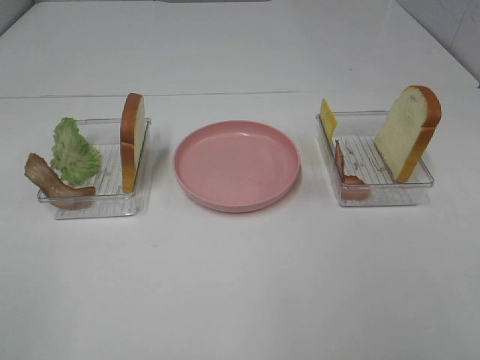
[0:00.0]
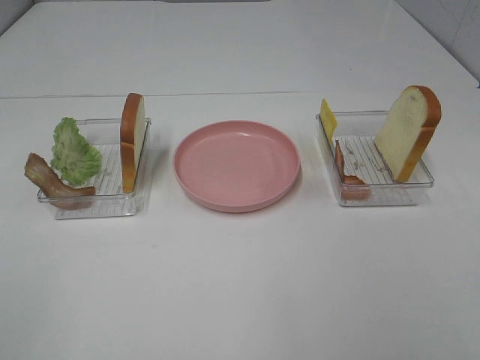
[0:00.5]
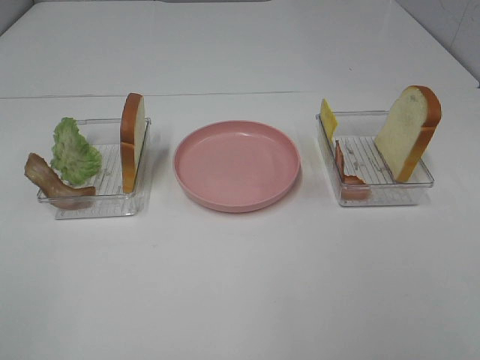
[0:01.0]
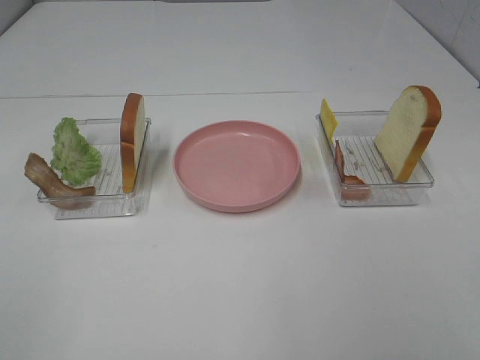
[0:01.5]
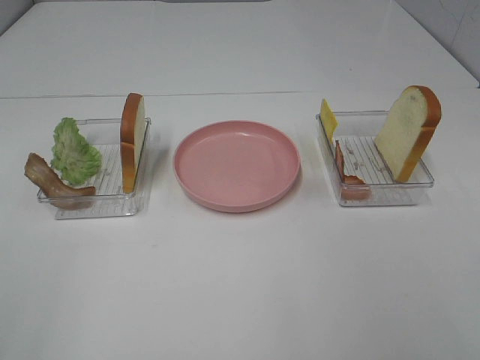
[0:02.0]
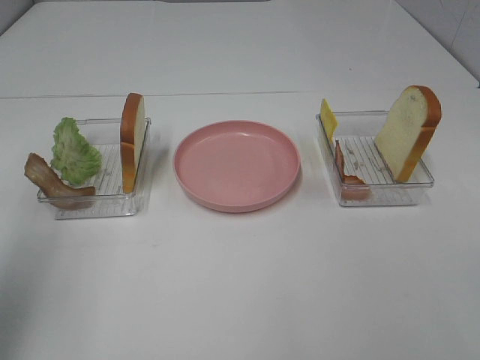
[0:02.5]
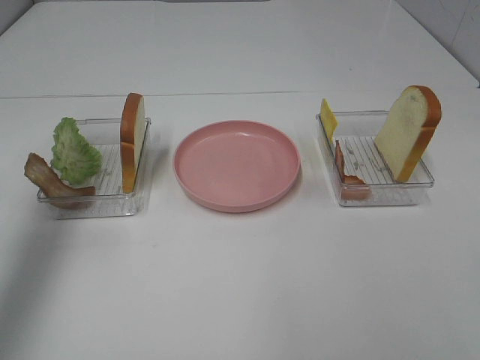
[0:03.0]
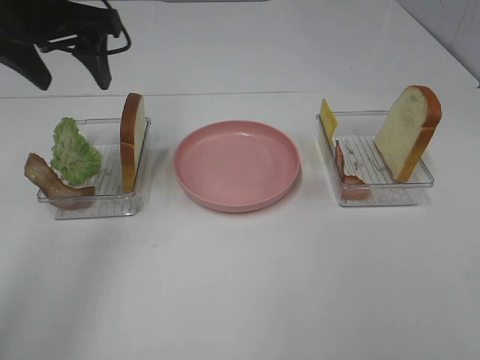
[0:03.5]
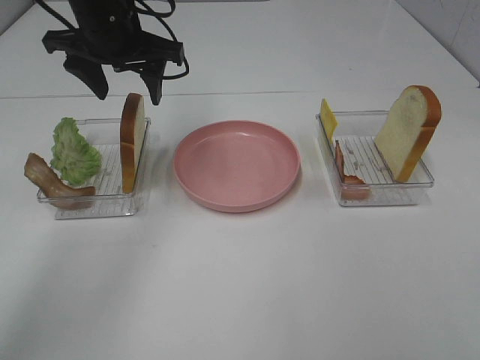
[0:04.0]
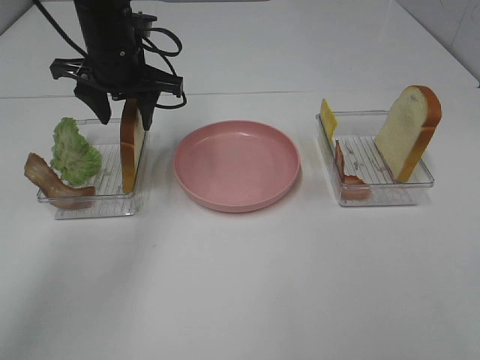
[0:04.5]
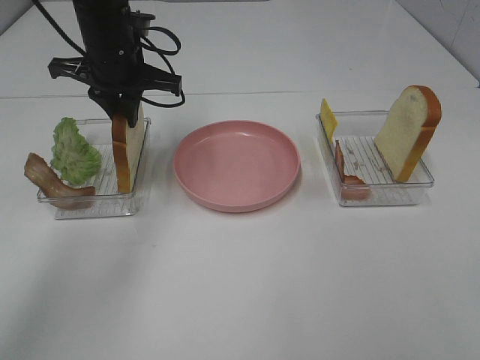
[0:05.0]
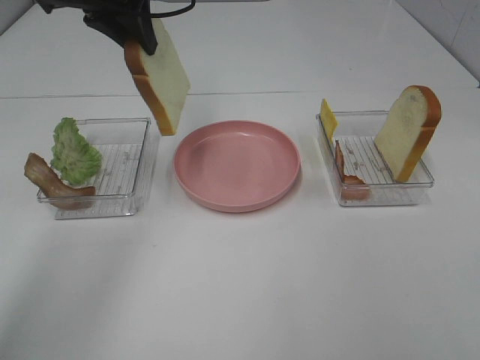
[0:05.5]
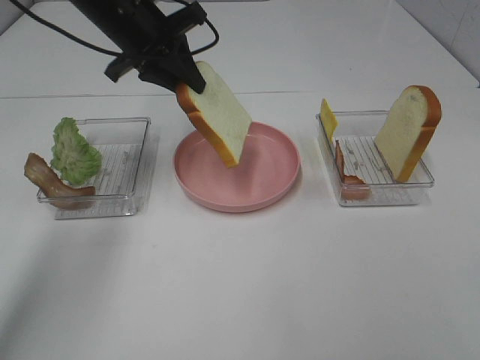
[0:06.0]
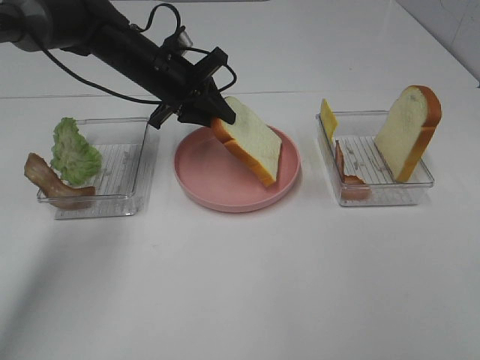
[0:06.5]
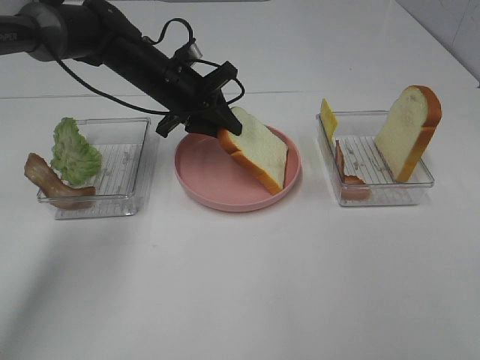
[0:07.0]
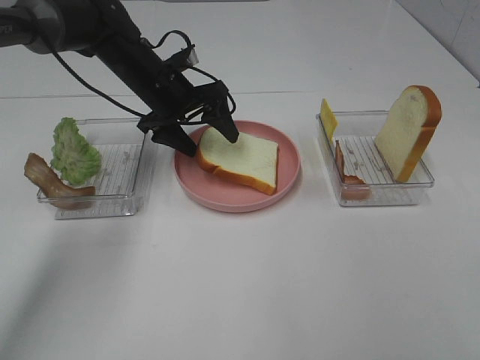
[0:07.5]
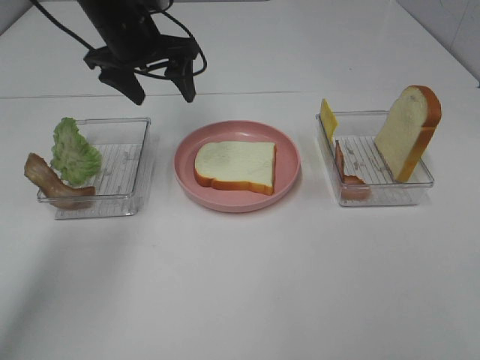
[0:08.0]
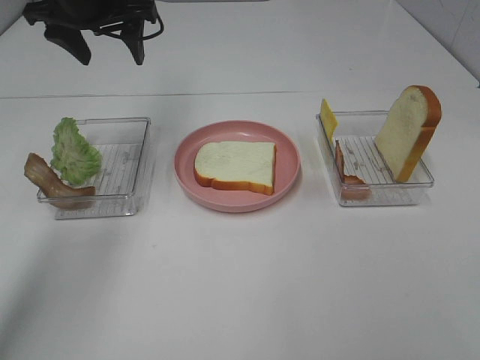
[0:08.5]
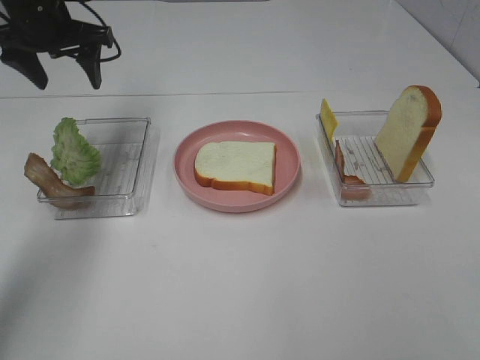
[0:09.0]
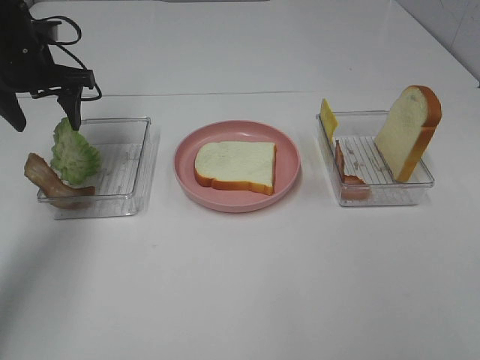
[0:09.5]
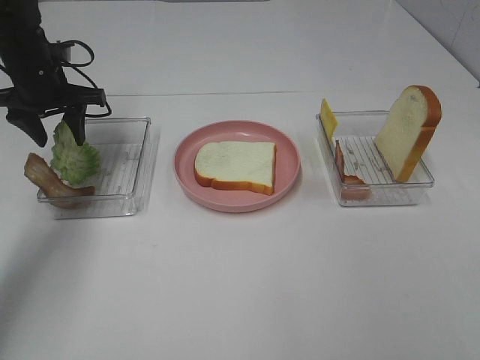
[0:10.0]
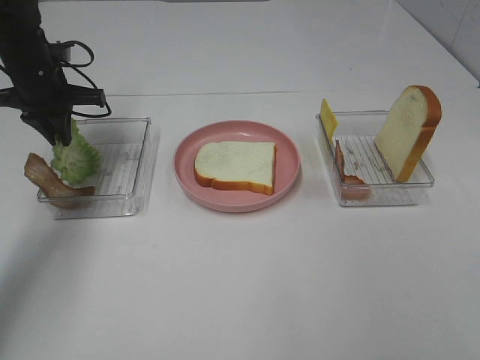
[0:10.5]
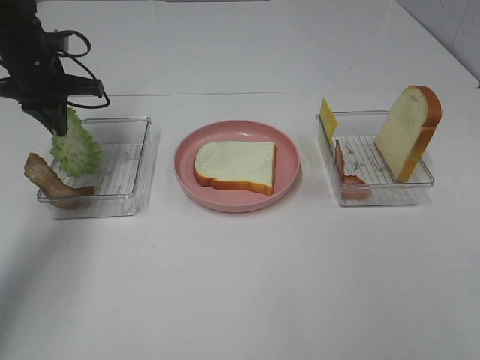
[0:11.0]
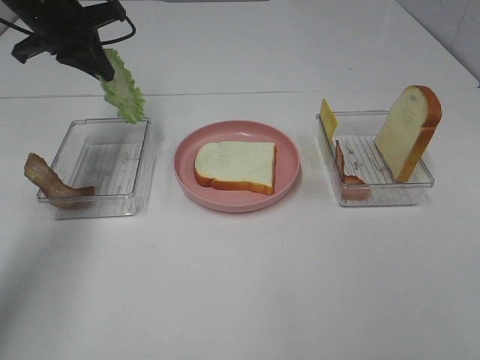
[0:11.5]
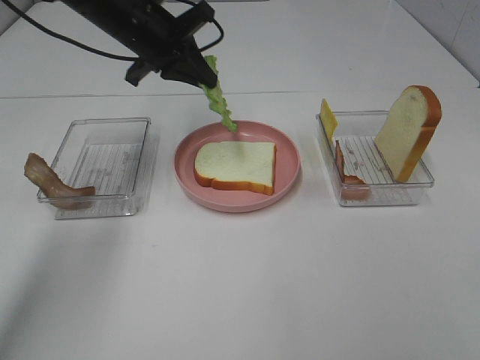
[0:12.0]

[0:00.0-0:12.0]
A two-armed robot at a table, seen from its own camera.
Task of the whole recording: Make sandwiches.
Step, 0:00.0 to 0:04.5: Left hand:grab the bread slice.
Step, 0:05.0 to 0:07.5: Left hand:place the bread slice on the plate.
Step, 0:08.0 to 0:10.5: Left hand:grab the lettuce slice.
0:02.0 to 0:04.0: The left gripper moves forward, some 40 cm.
0:04.0 to 0:06.0: The left gripper moves up and down over about 10 cm, changing direction 2 times, and closes up.
0:06.0 to 0:08.0: The left gripper travels downward and back again, about 10 cm each way, and opens.
0:08.0 to 0:10.0: The left gripper travels to the left and downward by roughly 15 cm.
0:10.0 to 0:12.0: The left gripper is displaced to the right by roughly 15 cm, and closes.

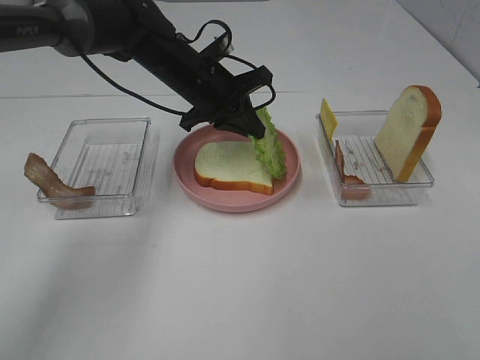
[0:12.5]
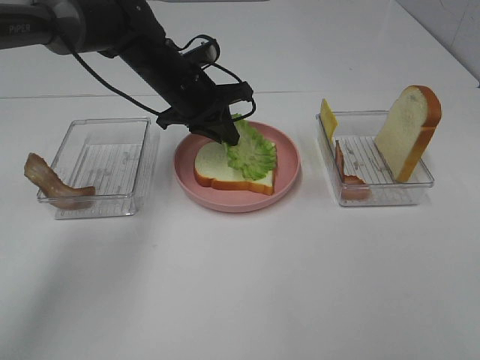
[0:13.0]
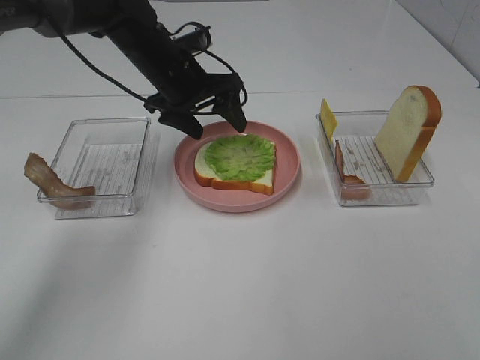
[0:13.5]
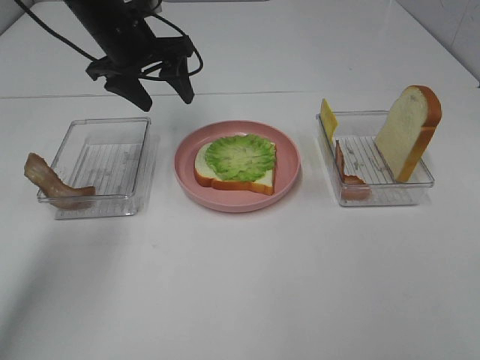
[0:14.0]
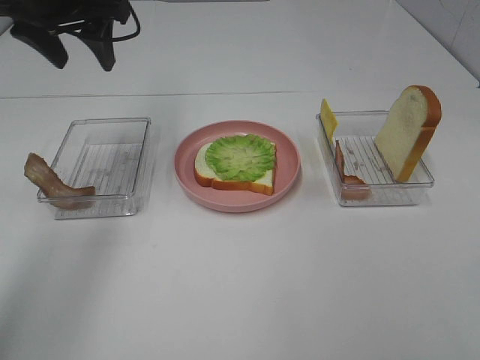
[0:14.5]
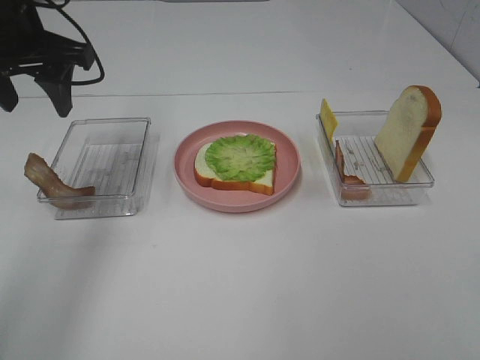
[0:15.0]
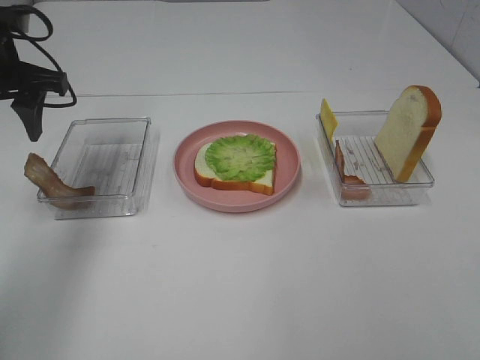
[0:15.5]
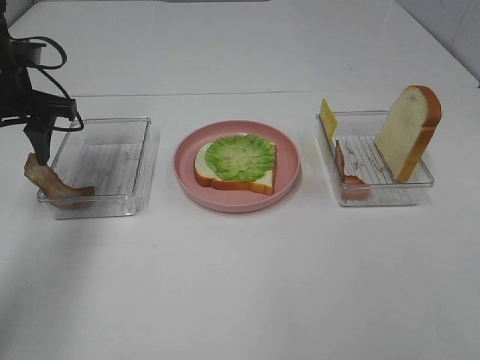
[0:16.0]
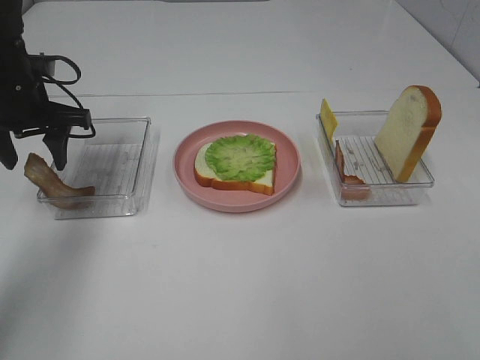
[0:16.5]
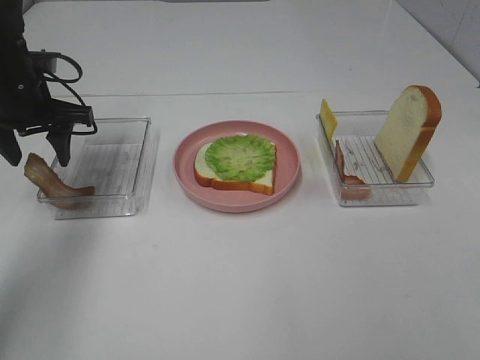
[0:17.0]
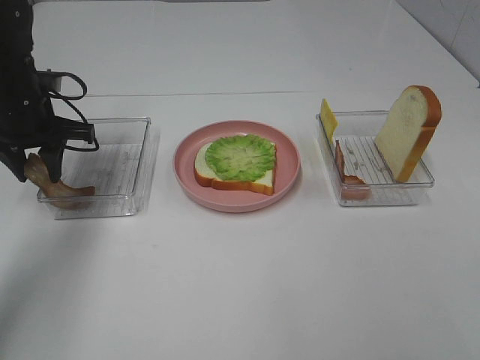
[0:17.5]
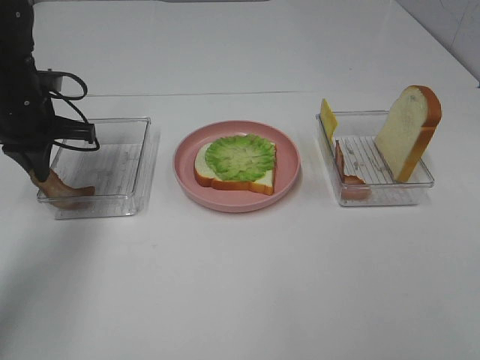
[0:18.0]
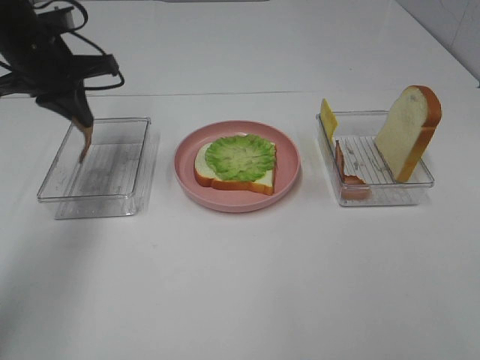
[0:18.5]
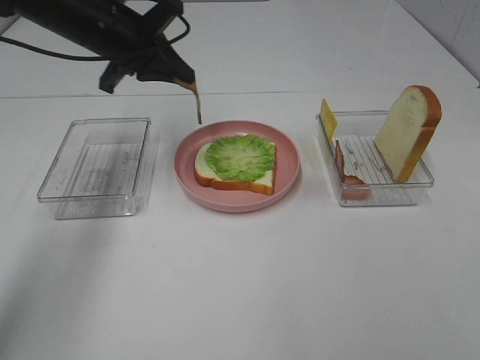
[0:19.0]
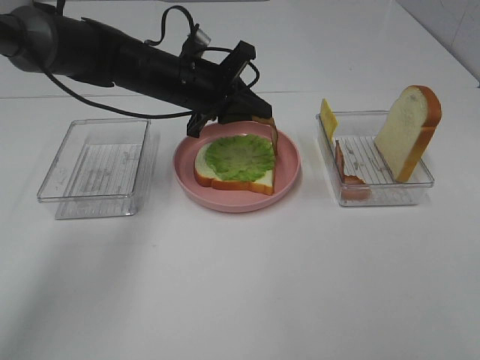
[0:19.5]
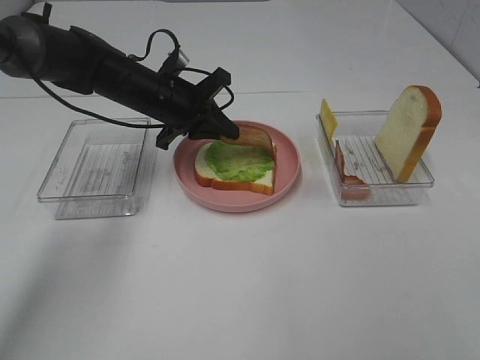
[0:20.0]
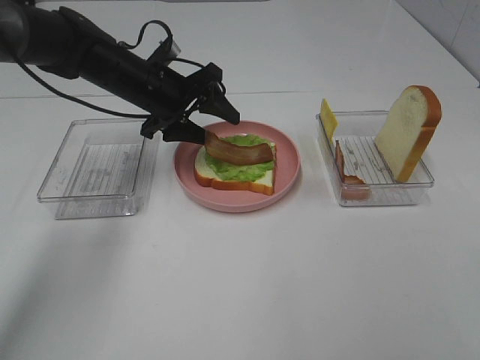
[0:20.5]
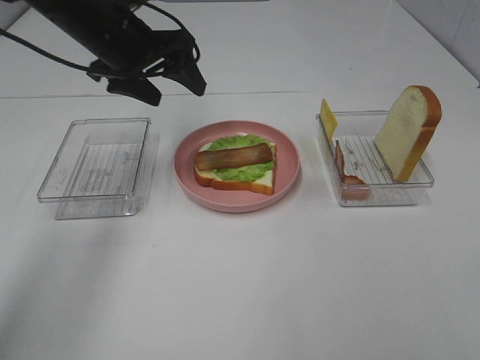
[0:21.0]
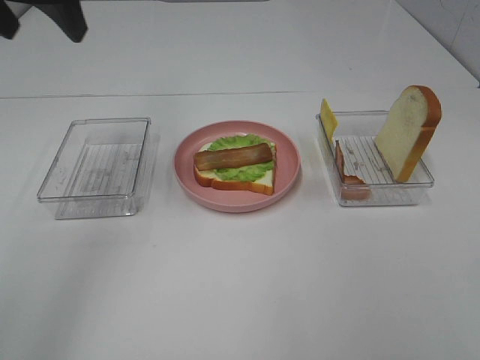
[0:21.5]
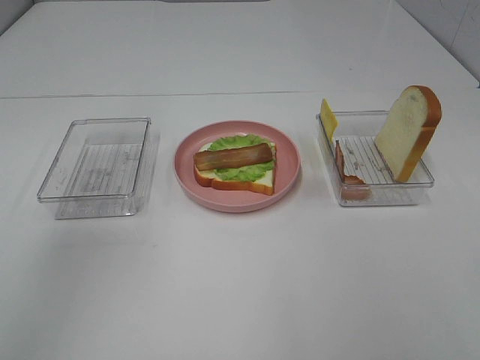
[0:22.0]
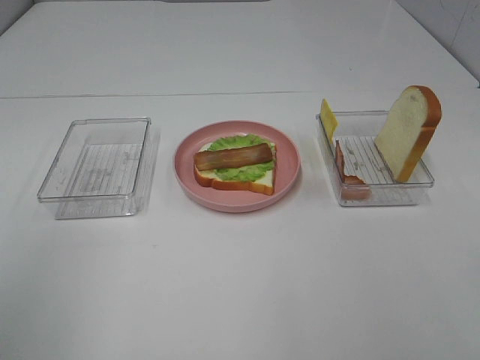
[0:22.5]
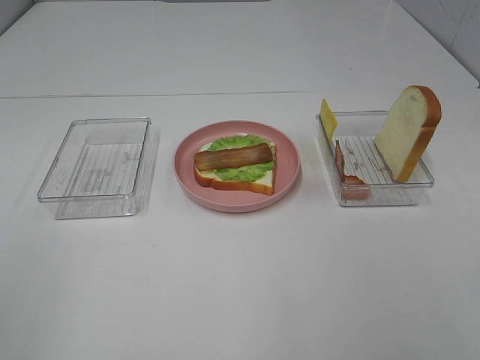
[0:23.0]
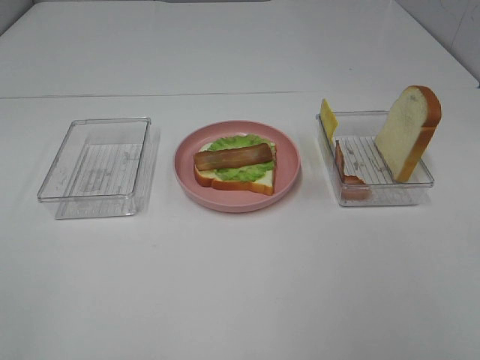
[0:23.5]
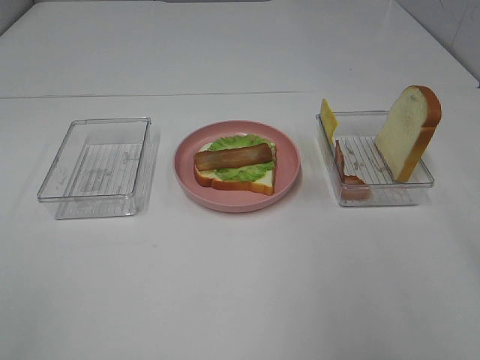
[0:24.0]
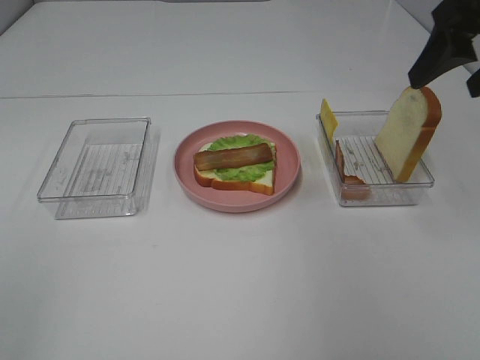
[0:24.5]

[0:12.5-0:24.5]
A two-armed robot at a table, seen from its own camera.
Task of the whole recording: Make sandwiches.
Step, 0:14.0 to 0:18.0: Left hand:grab the bacon.
Step, 0:18.5 to 0:20.5: Left hand:place bacon on lettuce slice.
0:12.5 to 0:14.5: The left gripper goes approximately 20 cm upward and to the left, and opens its fingers.
0:14.5 to 0:16.5: The left gripper travels downward and to the left by some 15 cm.
0:16.5 to 0:18.5: The left gripper closes.
0:18.5 to 0:20.5: The left gripper is displaced to the right and downward by roughly 15 cm, and opens.
0:20.5 to 0:22.5: The left gripper travels backward, upward and to the left by approximately 40 cm.
0:22.5 to 0:24.5: The right gripper is displaced forward by some 30 cm.

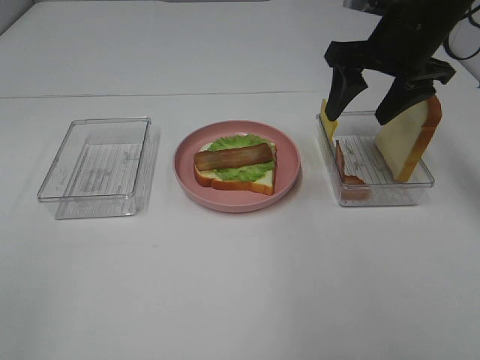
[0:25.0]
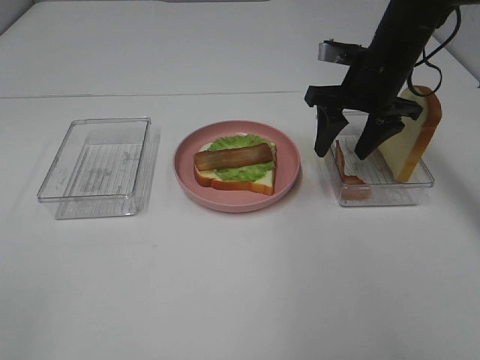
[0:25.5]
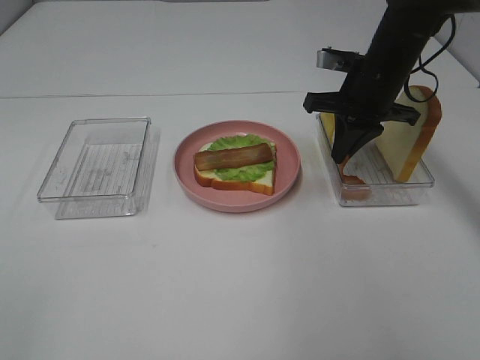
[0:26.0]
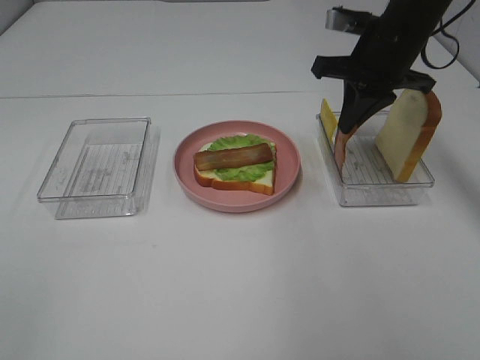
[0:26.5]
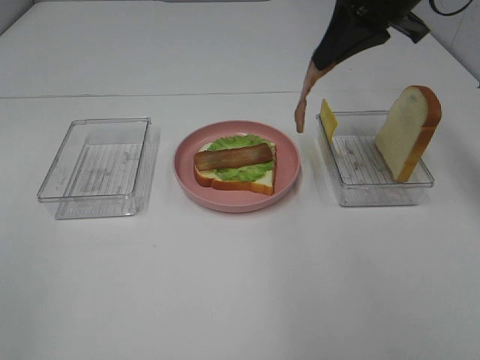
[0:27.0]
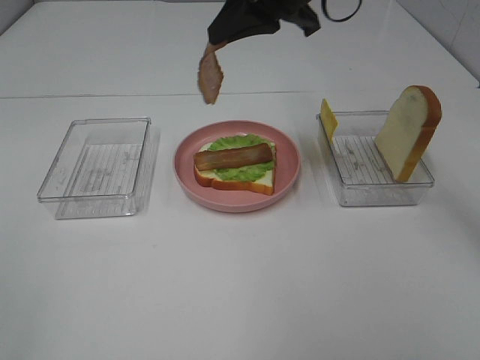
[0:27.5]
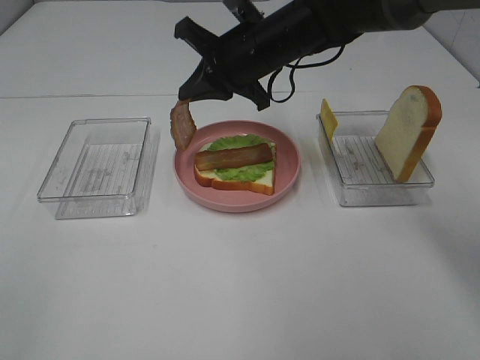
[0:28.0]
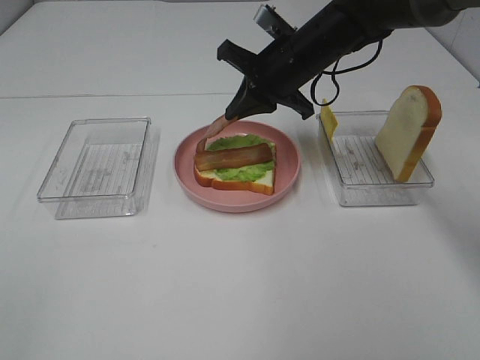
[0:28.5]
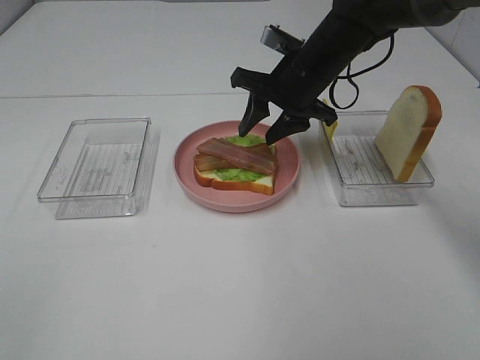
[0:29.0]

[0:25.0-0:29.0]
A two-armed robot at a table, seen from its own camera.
Task of the whole recording: Make sandwiches.
0:25.0 to 0:27.0: The right gripper shifts roughly 5 cm upward, and closes.
0:27.0 to 0:29.0: The right gripper is displaced downward and to the left by approximately 15 cm, and opens.
